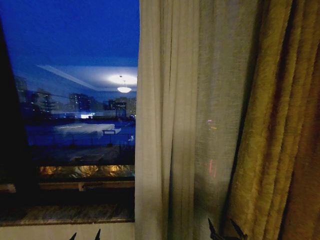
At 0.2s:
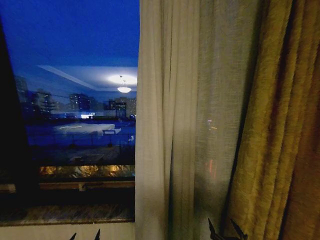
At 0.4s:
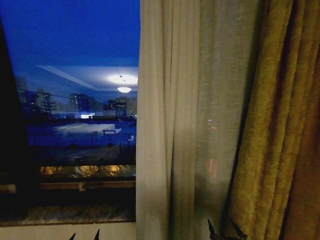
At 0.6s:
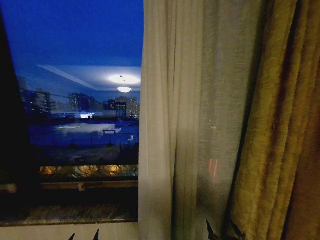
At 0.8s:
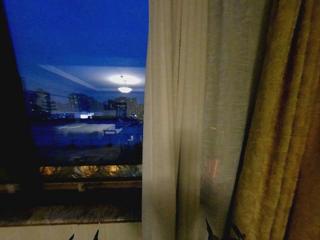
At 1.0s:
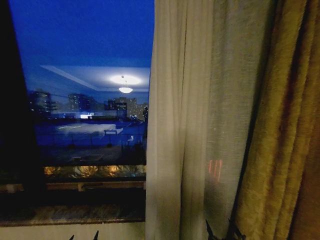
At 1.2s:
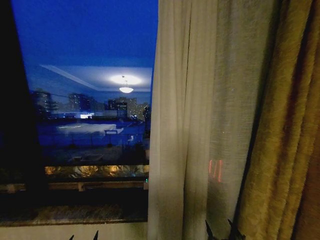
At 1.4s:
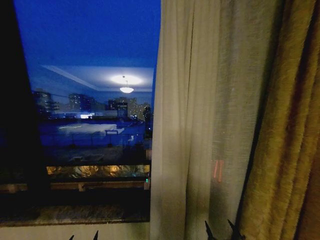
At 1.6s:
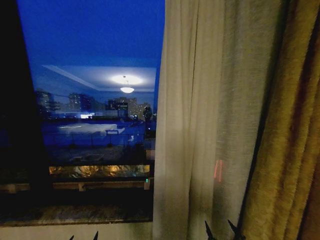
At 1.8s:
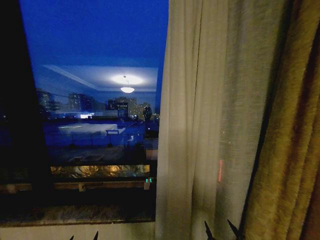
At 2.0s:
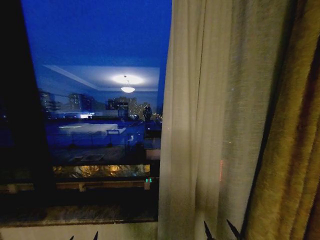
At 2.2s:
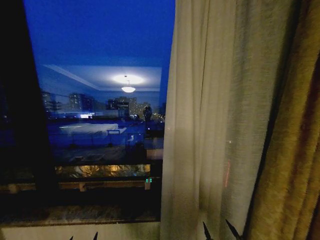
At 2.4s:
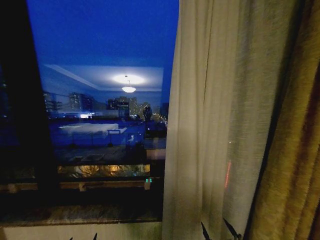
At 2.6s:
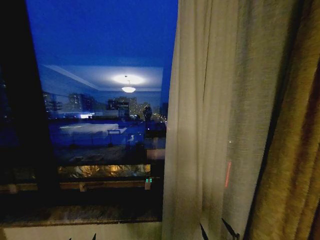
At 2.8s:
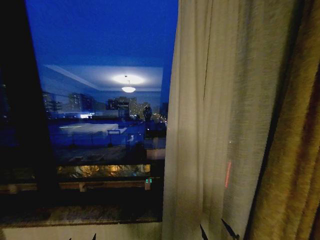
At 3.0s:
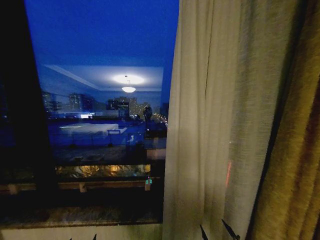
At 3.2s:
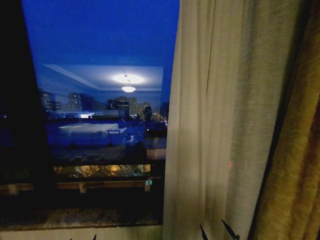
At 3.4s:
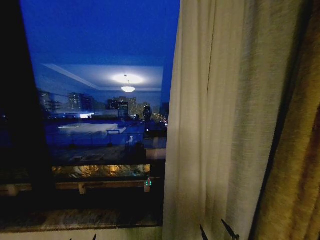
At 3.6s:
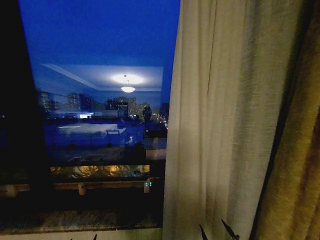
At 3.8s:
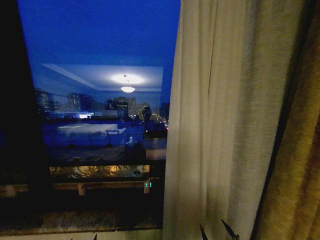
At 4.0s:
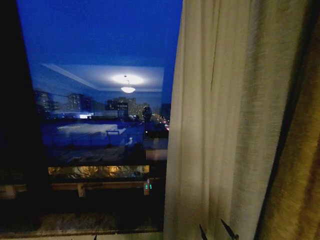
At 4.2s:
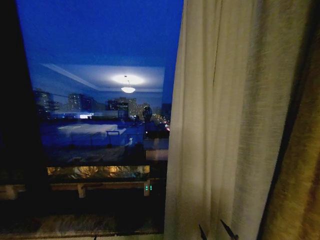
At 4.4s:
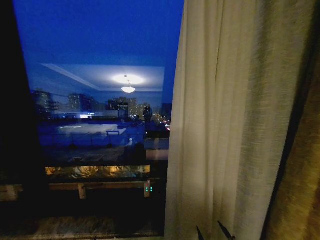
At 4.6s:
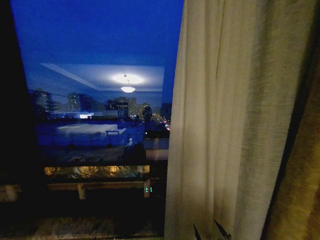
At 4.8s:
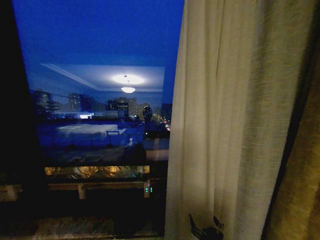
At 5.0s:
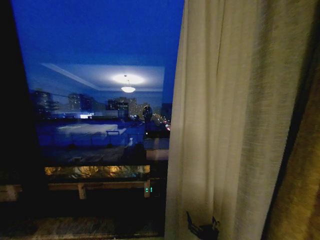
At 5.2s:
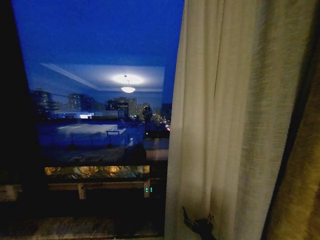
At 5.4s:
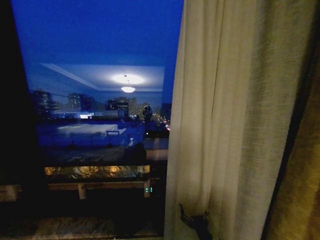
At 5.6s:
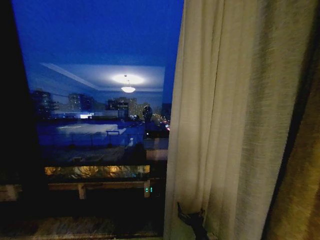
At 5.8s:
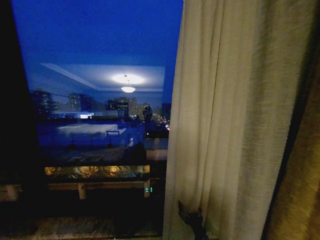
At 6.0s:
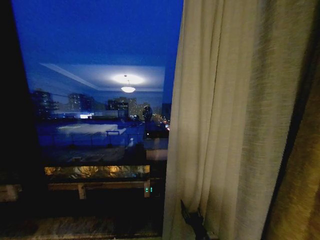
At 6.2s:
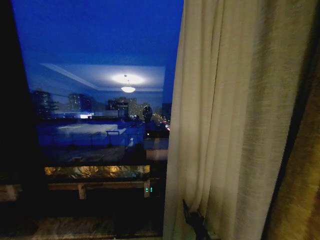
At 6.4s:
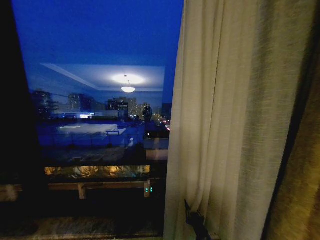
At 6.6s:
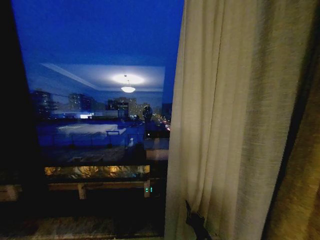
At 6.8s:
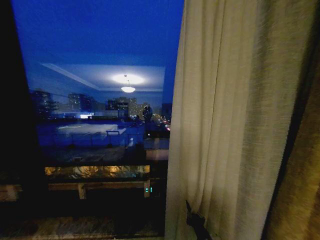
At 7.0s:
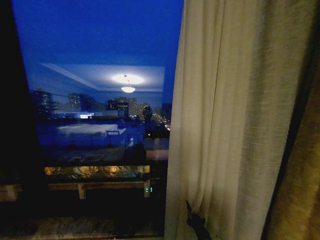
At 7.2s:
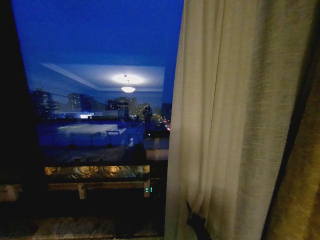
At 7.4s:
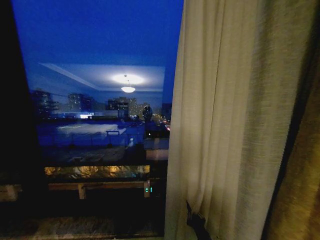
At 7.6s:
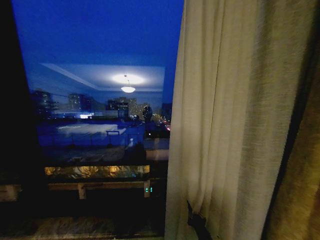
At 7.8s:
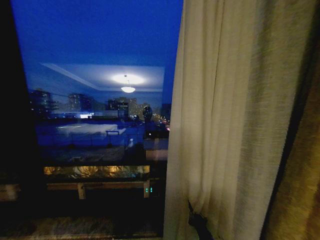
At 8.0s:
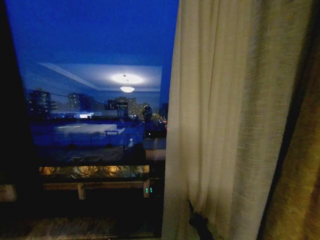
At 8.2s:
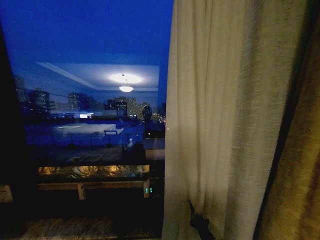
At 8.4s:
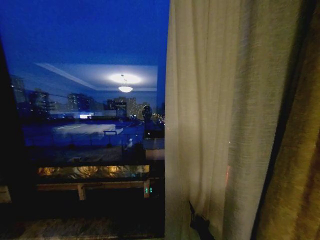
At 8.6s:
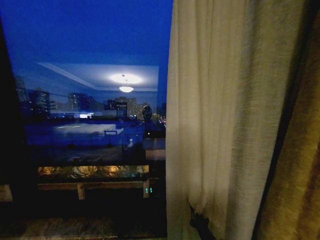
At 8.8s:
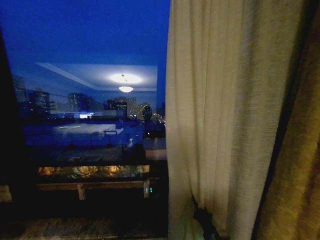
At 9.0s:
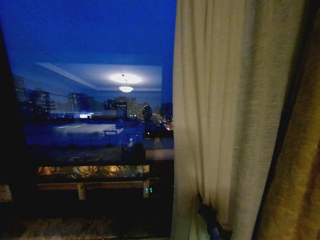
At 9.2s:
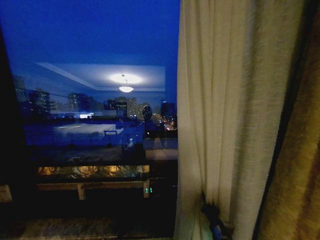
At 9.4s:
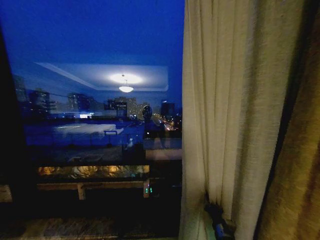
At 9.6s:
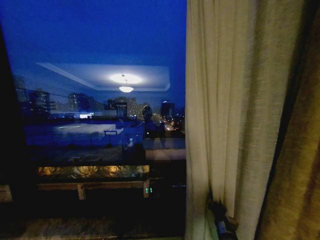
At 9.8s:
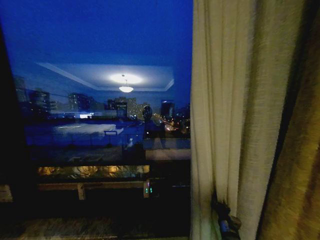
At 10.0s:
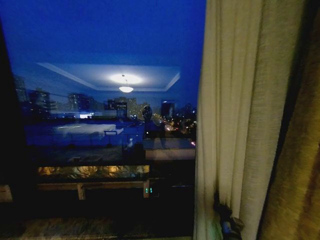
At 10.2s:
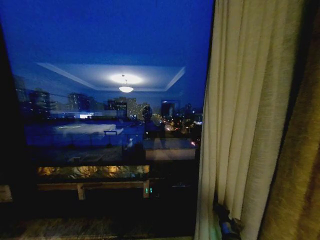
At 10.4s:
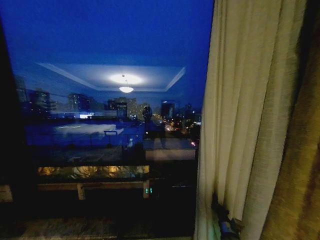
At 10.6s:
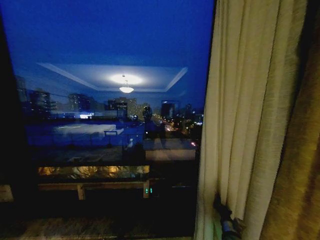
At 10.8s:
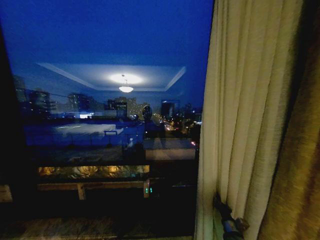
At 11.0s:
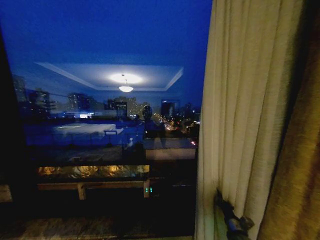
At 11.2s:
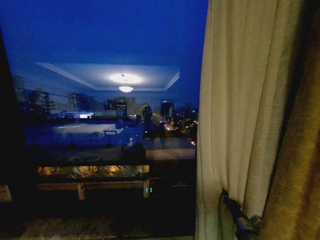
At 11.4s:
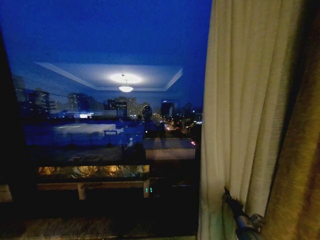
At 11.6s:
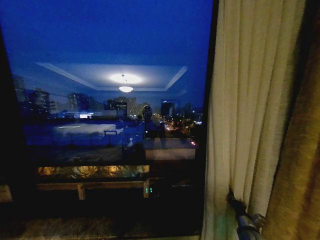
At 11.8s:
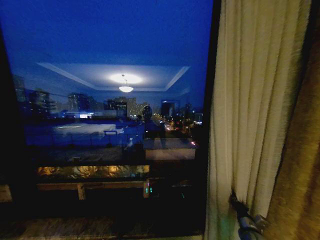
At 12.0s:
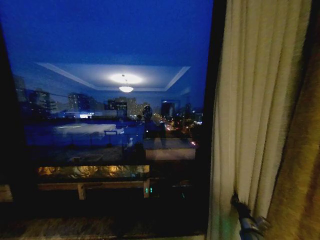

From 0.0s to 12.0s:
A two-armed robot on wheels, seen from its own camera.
Task of the whole recording: Open the curtains by pulling them apart, changing their state from closed to fully open.
From 4.4s to 6.0s: The right gripper shifts roughly 15 cm forward and to the left.
From 6.0s to 7.6s: The right gripper closes.
From 7.6s to 9.0s: The right gripper moves some 5 cm.
From 9.0s to 10.4s: The right gripper travels to the right, forward and downward by approximately 15 cm.
From 10.4s to 12.0s: The right gripper shifts about 10 cm to the right.

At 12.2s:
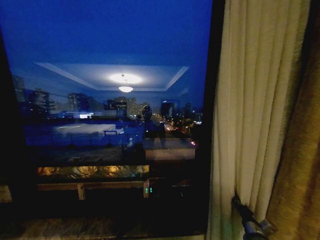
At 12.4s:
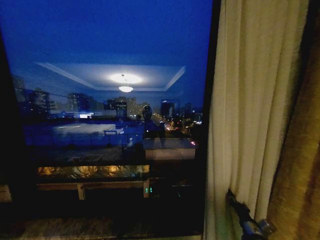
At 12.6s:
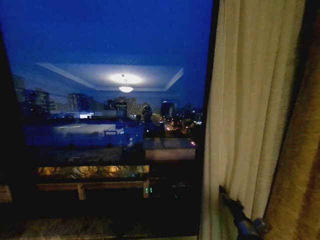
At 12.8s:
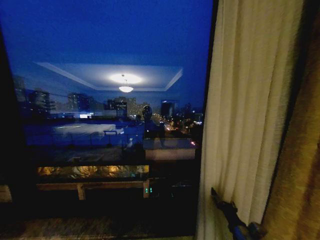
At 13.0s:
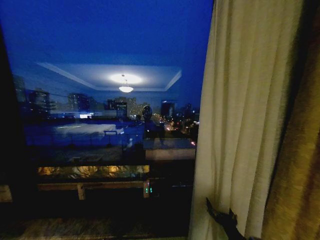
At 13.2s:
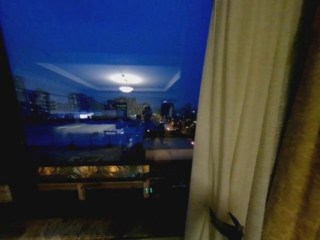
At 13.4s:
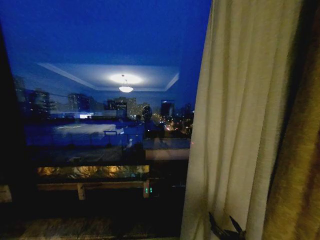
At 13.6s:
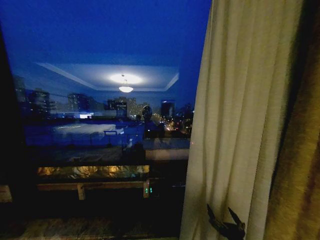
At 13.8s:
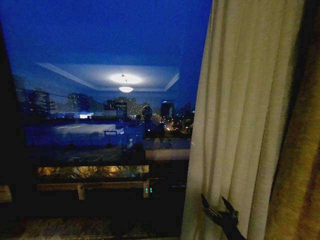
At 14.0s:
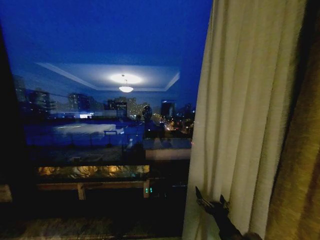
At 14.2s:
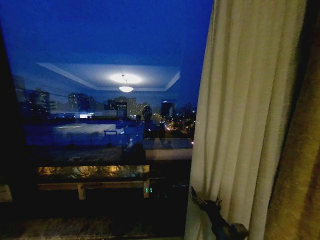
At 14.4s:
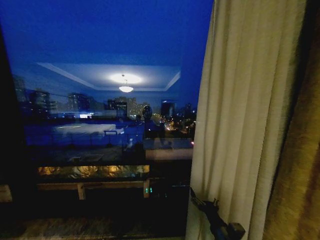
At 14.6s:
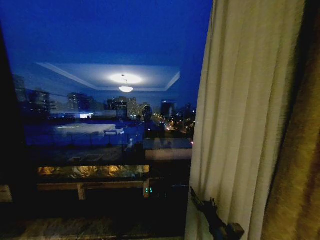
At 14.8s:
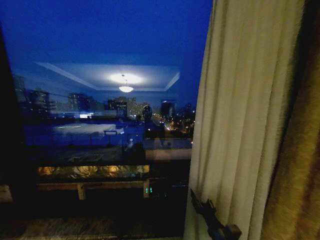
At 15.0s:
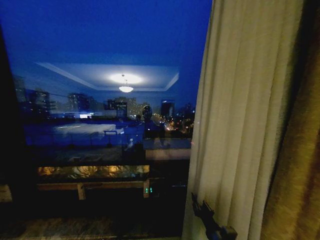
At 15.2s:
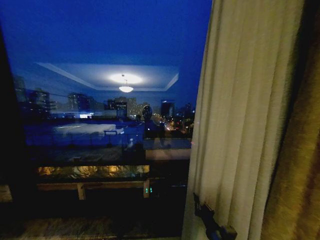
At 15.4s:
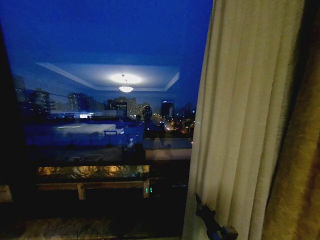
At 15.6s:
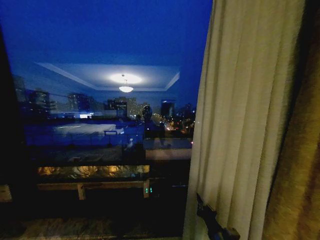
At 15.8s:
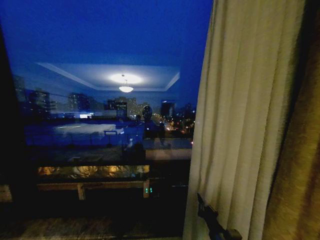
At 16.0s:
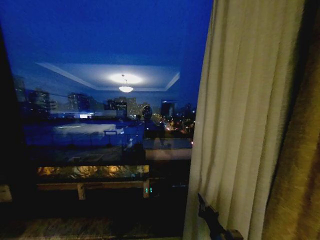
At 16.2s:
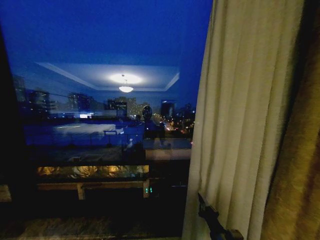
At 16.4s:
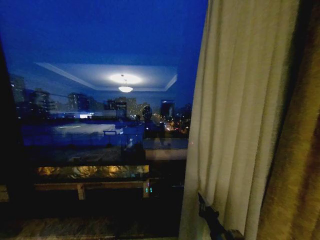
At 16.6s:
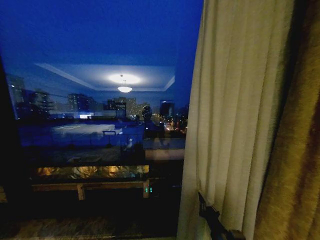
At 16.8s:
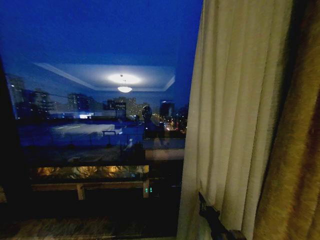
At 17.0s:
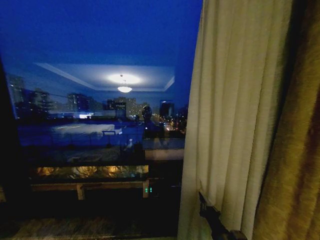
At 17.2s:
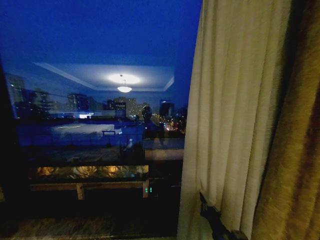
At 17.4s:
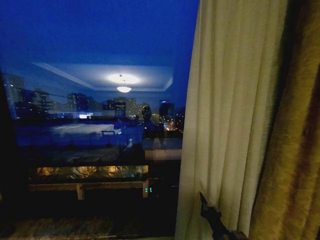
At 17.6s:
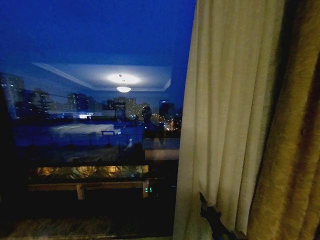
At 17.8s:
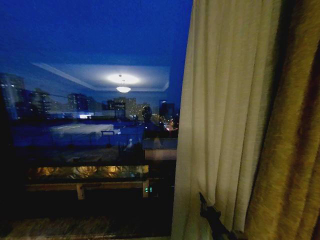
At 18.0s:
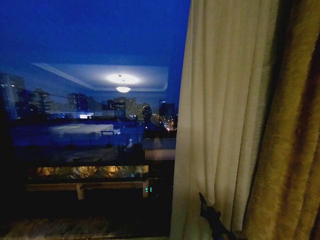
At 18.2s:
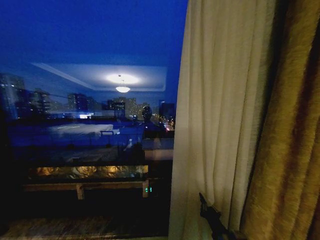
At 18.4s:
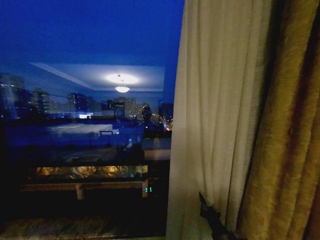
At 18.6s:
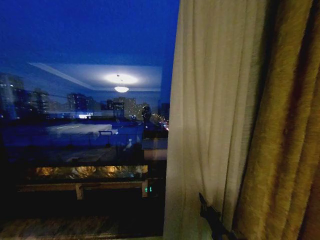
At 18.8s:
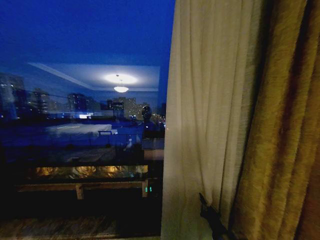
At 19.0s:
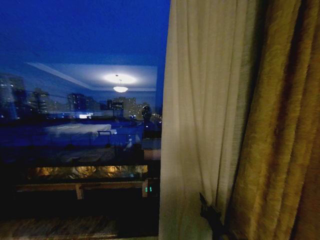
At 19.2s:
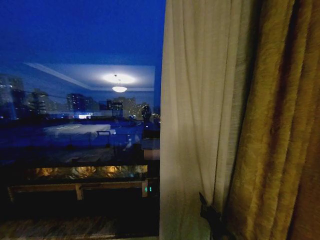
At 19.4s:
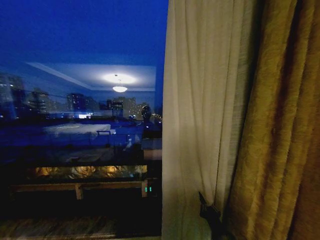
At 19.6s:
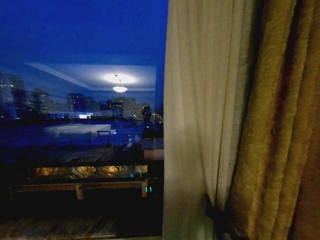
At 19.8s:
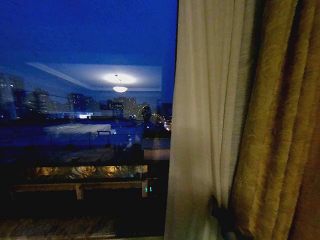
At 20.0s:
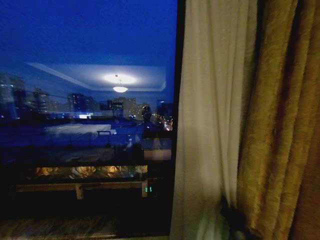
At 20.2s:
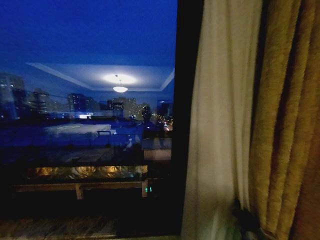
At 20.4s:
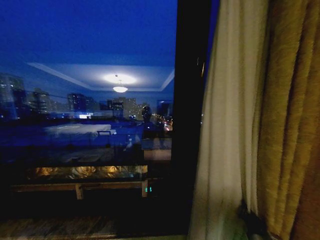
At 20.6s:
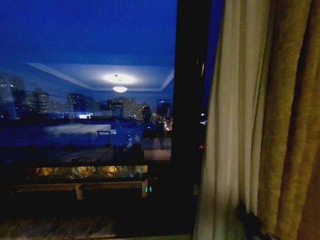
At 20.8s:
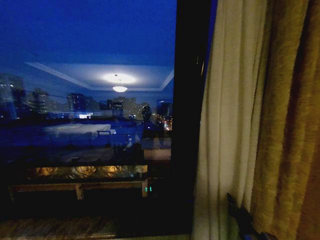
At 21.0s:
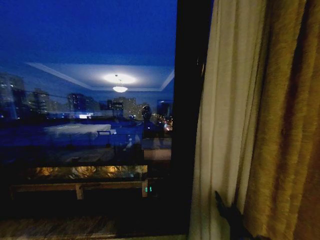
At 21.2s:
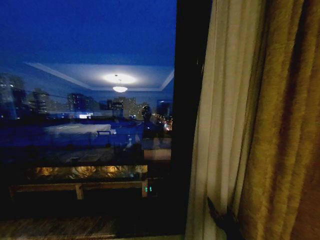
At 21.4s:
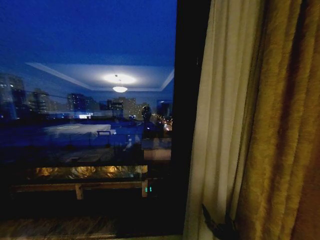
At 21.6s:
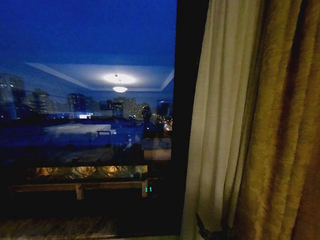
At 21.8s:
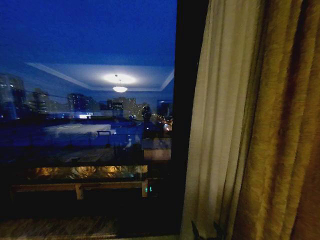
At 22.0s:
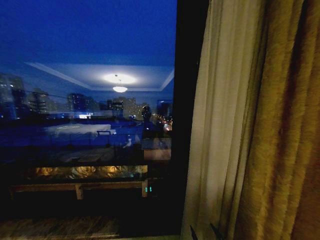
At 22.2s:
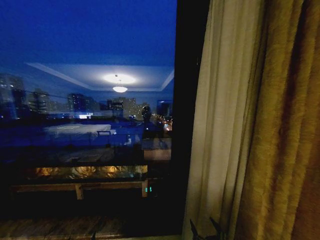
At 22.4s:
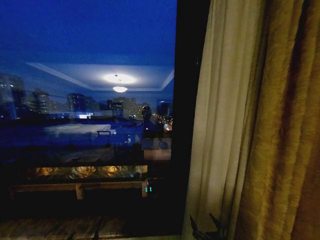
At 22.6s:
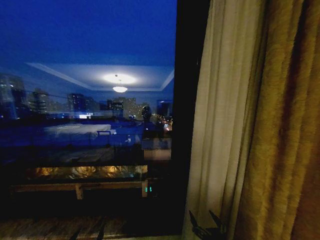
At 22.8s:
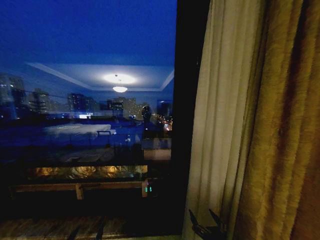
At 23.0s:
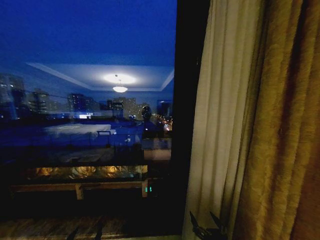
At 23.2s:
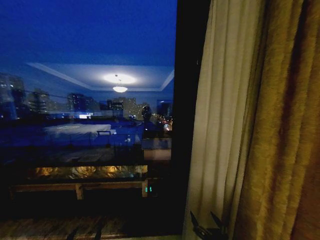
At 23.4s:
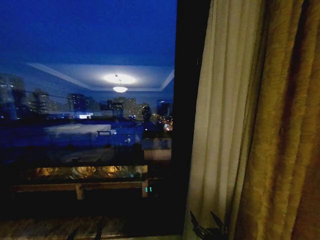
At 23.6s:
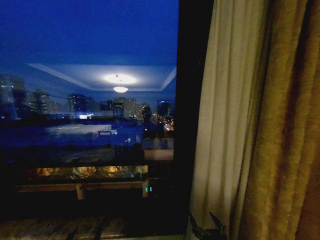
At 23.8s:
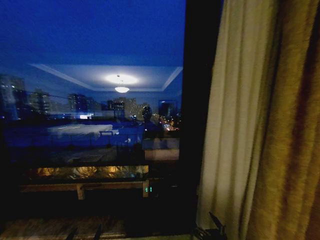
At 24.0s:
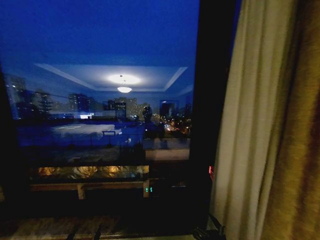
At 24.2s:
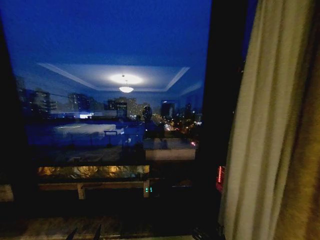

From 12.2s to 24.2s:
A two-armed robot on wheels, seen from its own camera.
Task of the whole recording: Open the curtains by pulling them apart, changing their state from closed to fully open.
From 12.2s to 13.8s: The right gripper heads backward, to the left and upward, covering about 25 cm, and opens.
From 13.8s to 15.2s: The right gripper moves forward, about 10 cm, and closes its fingers.
From 15.2s to 16.6s: There are only small adjustments of the grippers.
From 18.2s to 19.8s: The right gripper shifts by about 5 cm.
From 19.8s to 21.2s: The right gripper goes about 5 cm backward, reaches some 10 cm to the right, then returns, and opens up.
From 21.2s to 22.6s: The right gripper ends up about 5 cm from where it was, and opens its fingers; the left gripper heads upward, covering about 15 cm.
